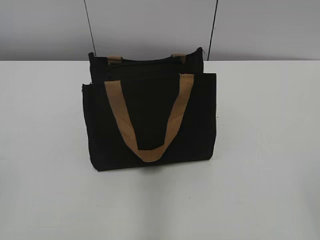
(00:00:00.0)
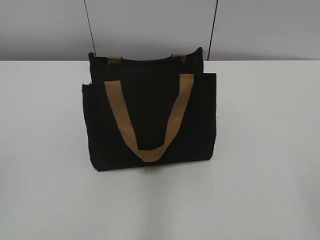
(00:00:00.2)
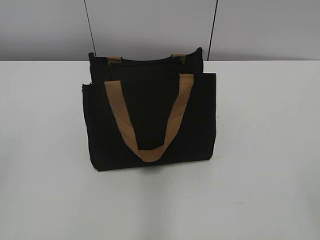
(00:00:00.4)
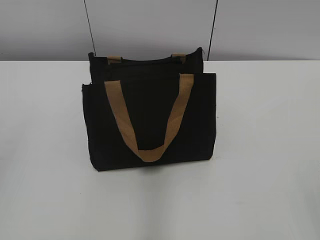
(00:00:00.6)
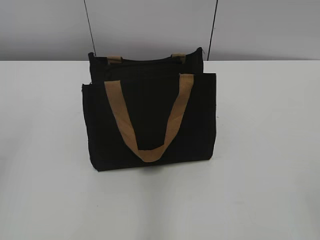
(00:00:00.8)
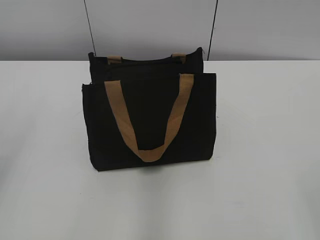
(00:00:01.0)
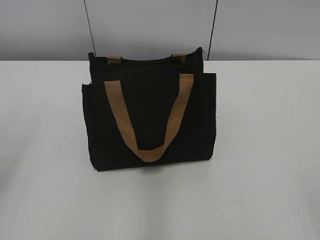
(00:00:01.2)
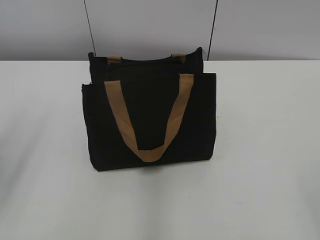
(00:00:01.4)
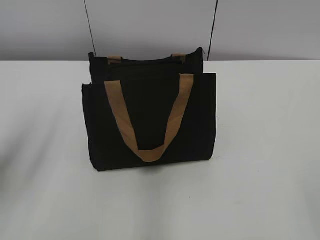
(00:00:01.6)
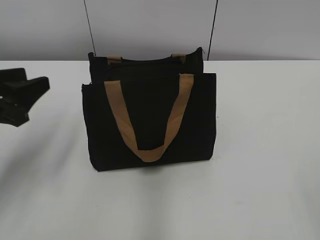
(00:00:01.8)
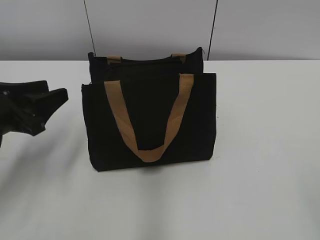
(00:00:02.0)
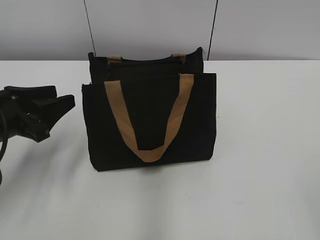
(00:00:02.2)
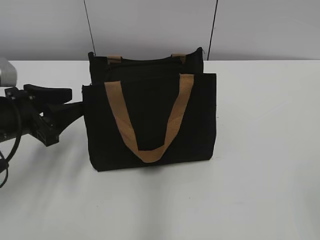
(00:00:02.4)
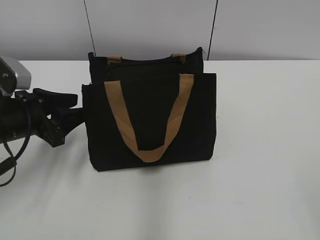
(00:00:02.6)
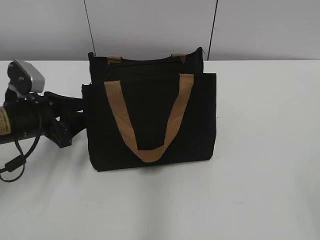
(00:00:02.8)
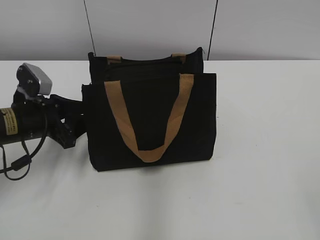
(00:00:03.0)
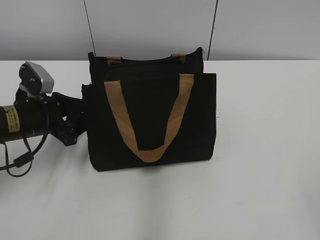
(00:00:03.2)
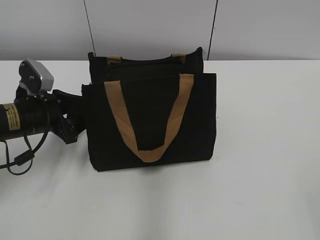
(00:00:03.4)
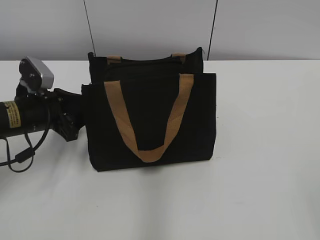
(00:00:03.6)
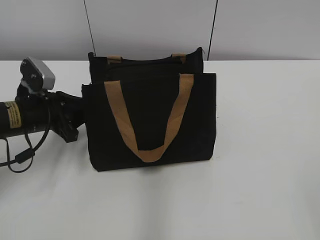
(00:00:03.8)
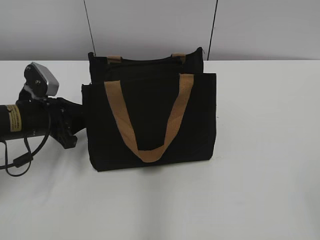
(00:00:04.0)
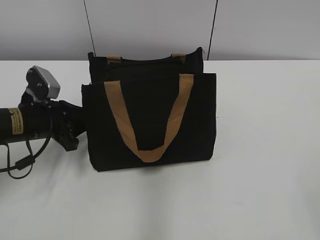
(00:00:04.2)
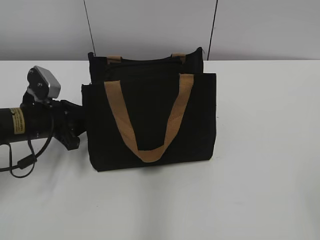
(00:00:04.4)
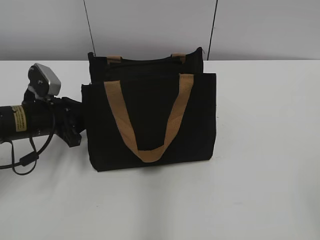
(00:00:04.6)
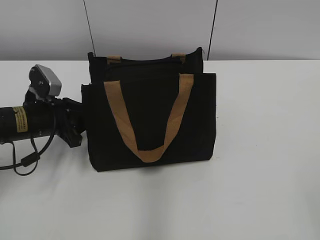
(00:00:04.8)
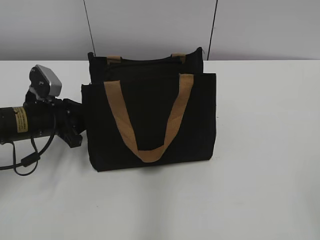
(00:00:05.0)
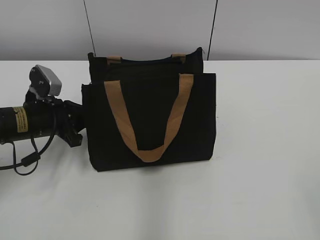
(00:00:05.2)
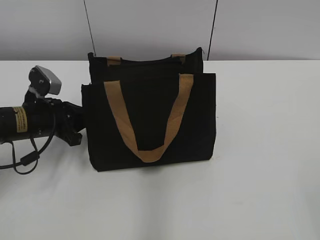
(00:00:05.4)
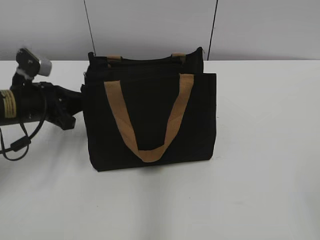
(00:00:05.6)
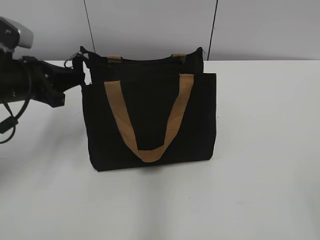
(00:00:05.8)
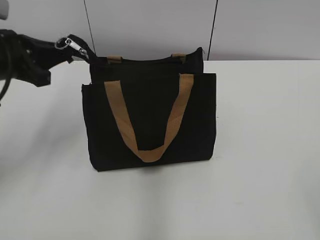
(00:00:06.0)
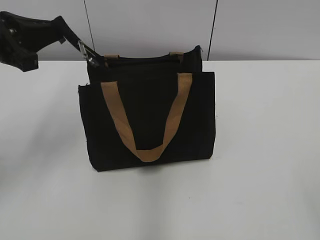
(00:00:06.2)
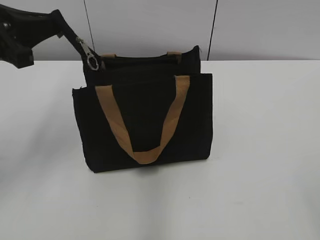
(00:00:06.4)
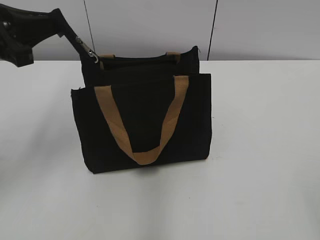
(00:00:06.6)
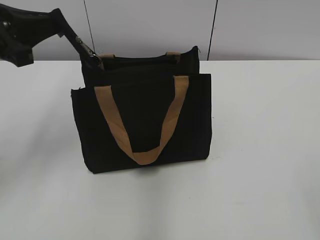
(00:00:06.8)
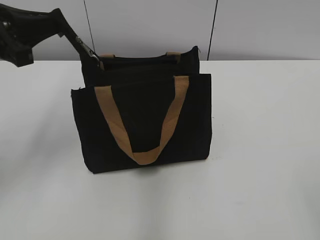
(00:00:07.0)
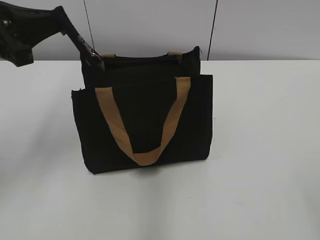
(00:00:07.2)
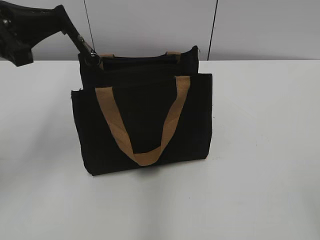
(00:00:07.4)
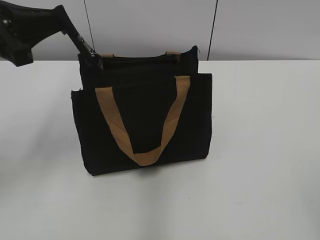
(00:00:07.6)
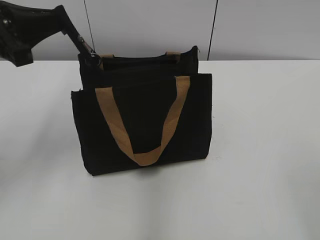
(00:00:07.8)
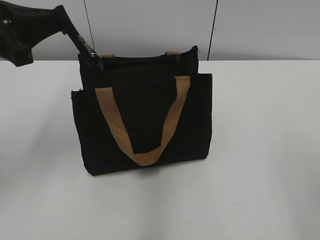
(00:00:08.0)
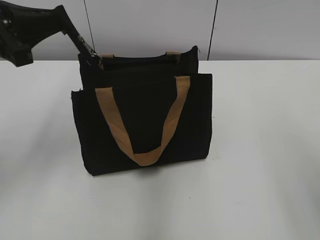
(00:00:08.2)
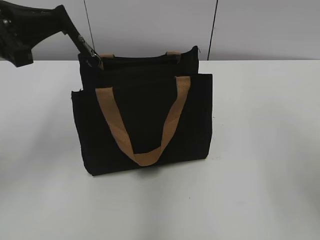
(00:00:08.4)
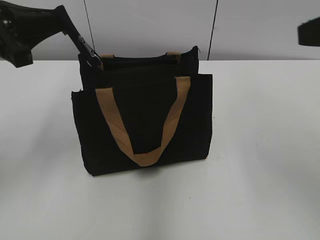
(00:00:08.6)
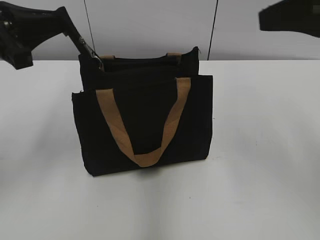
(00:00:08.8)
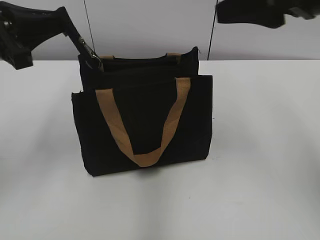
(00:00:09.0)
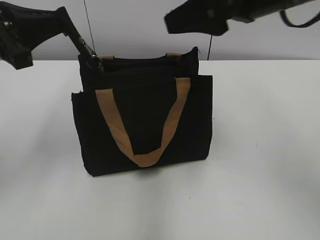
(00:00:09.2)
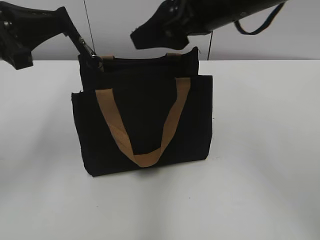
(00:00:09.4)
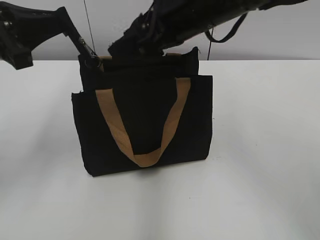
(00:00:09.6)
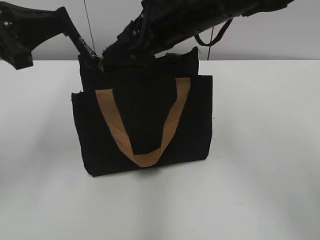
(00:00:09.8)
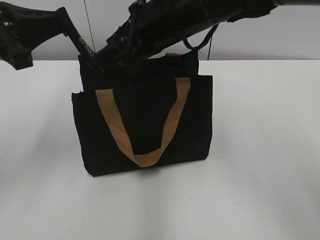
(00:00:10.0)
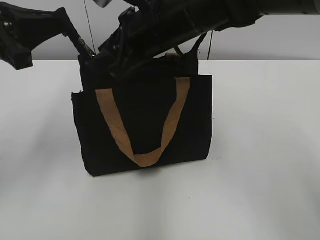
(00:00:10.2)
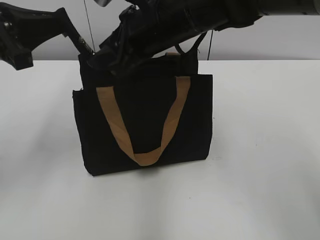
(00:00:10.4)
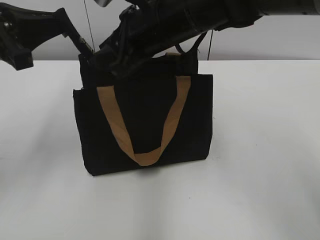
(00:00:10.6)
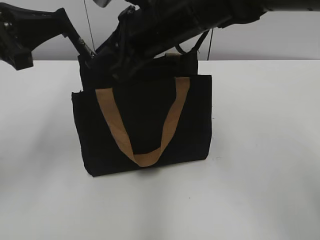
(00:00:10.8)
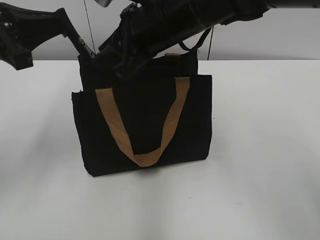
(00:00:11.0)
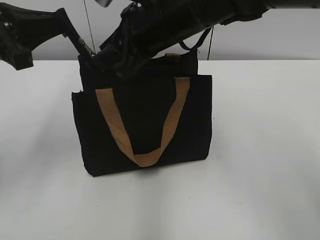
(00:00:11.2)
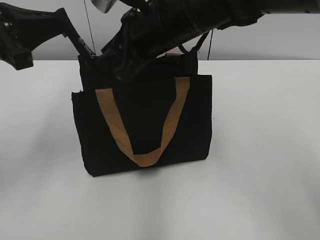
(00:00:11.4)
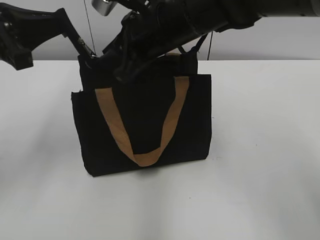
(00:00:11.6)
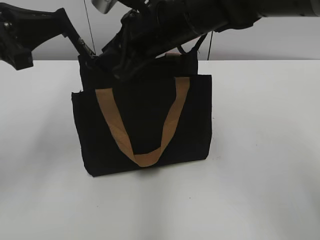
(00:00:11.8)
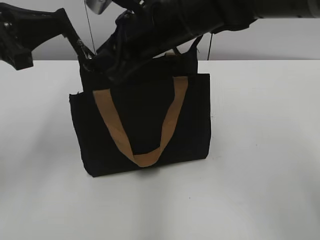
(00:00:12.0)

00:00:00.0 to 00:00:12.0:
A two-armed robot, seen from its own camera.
00:00:00.0 to 00:00:01.6: The left gripper is displaced forward by some 20 cm.
00:00:01.6 to 00:00:03.0: The left gripper moves downward, forward and to the right, approximately 20 cm.
00:00:03.0 to 00:00:04.4: The left gripper closes.
00:00:04.4 to 00:00:06.0: The left gripper heads upward, covering approximately 10 cm, and closes.
00:00:06.0 to 00:00:07.6: The left gripper is displaced upward by about 5 cm.
00:00:07.6 to 00:00:09.0: The right gripper shifts about 25 cm forward.
00:00:09.0 to 00:00:10.4: The right gripper is displaced to the left, downward and forward by about 20 cm.
00:00:10.4 to 00:00:12.0: The two grippers keep their place.

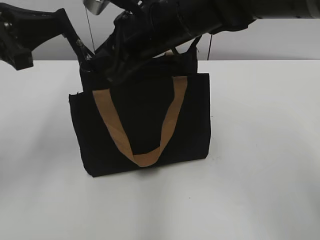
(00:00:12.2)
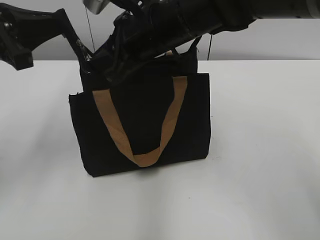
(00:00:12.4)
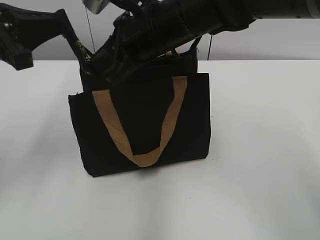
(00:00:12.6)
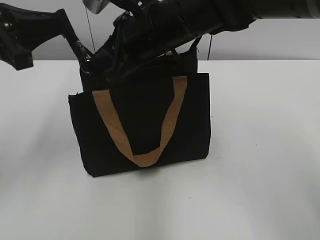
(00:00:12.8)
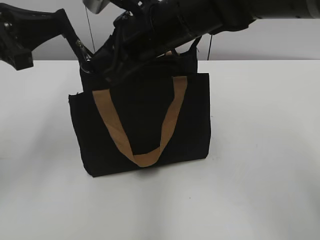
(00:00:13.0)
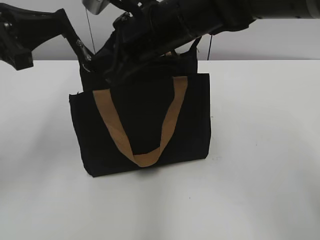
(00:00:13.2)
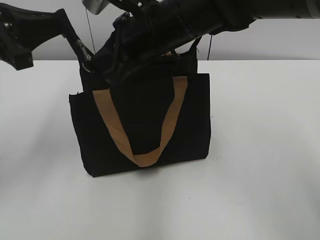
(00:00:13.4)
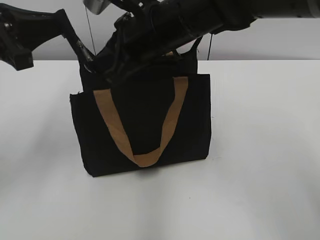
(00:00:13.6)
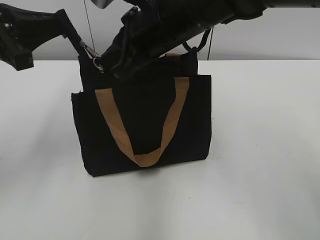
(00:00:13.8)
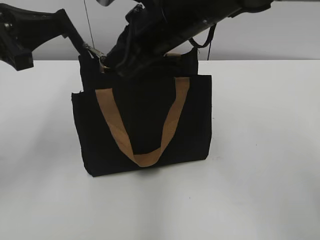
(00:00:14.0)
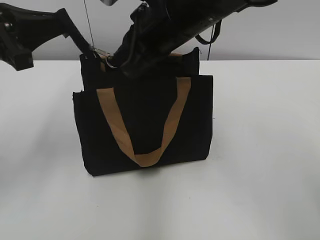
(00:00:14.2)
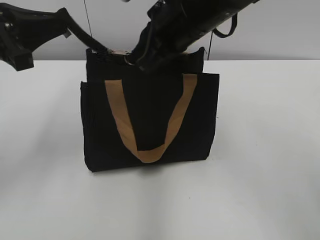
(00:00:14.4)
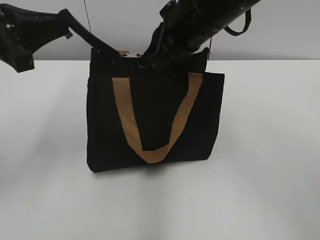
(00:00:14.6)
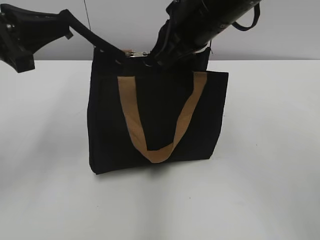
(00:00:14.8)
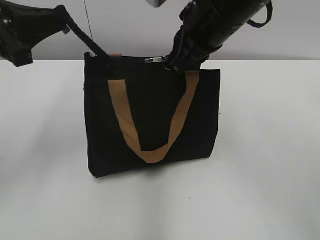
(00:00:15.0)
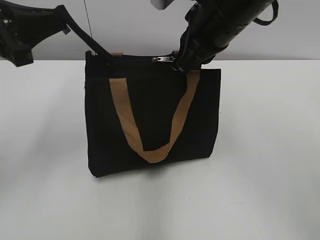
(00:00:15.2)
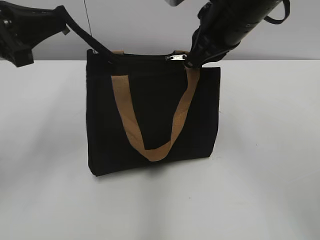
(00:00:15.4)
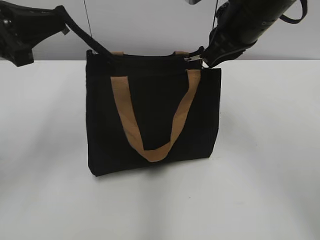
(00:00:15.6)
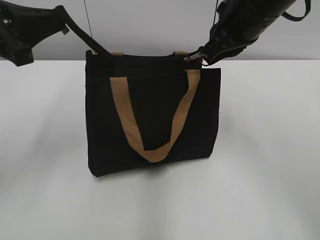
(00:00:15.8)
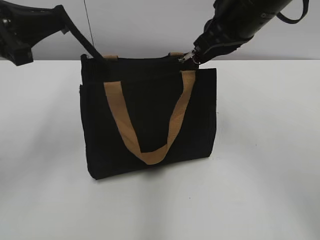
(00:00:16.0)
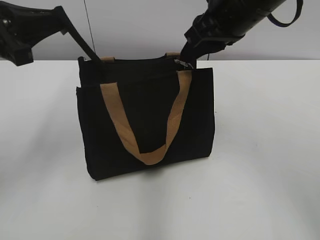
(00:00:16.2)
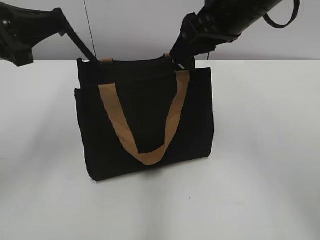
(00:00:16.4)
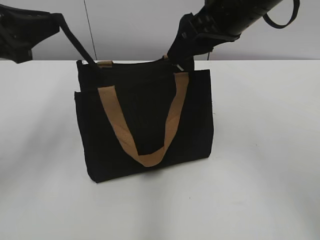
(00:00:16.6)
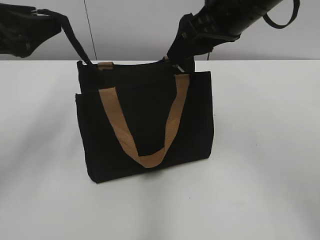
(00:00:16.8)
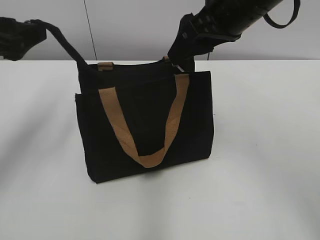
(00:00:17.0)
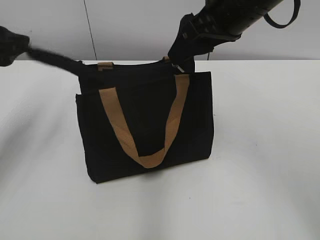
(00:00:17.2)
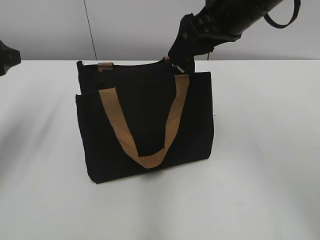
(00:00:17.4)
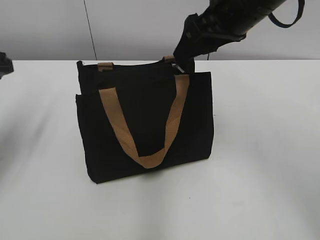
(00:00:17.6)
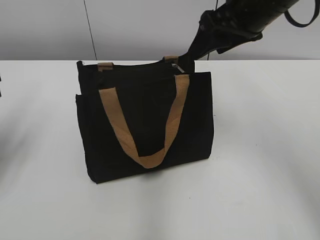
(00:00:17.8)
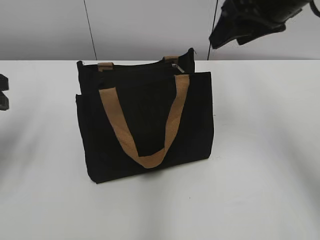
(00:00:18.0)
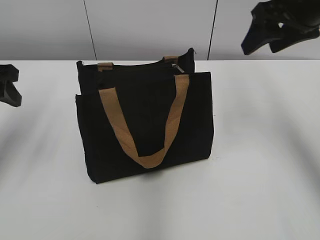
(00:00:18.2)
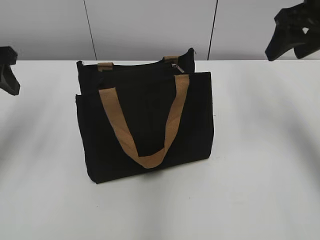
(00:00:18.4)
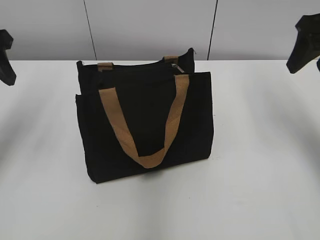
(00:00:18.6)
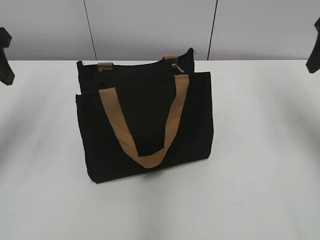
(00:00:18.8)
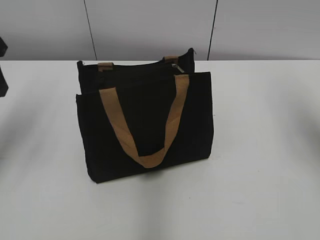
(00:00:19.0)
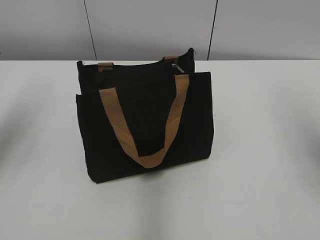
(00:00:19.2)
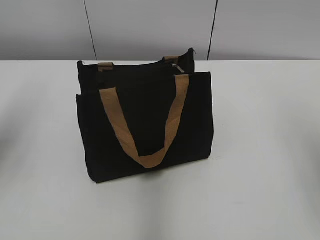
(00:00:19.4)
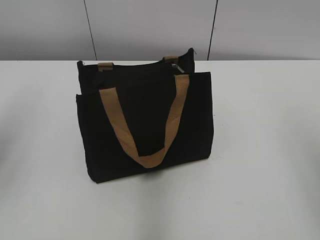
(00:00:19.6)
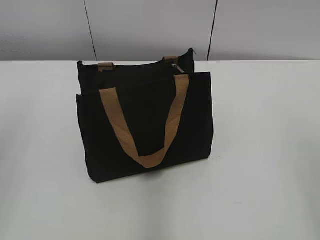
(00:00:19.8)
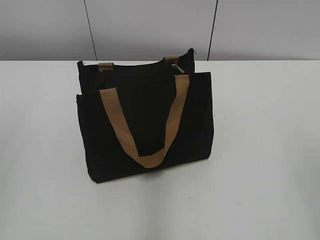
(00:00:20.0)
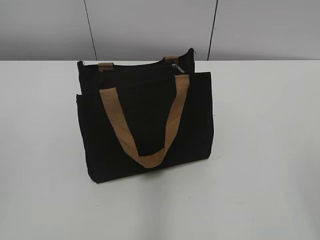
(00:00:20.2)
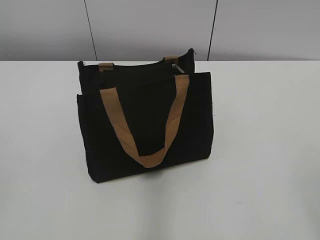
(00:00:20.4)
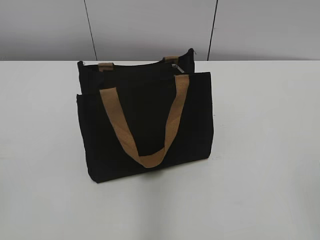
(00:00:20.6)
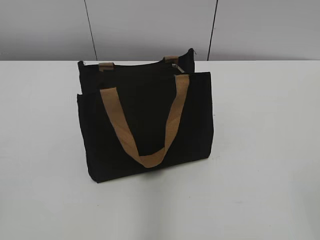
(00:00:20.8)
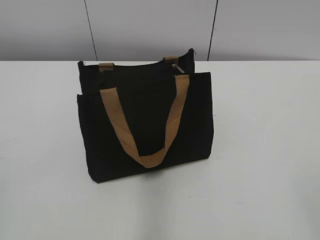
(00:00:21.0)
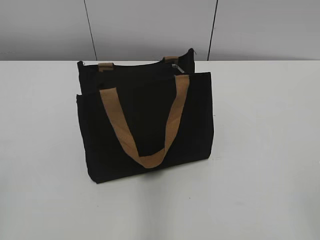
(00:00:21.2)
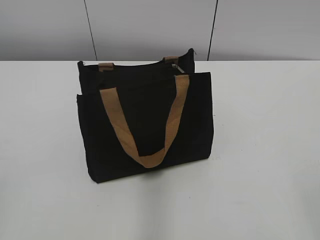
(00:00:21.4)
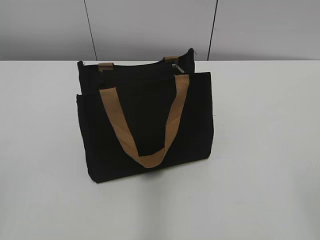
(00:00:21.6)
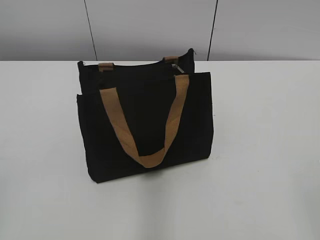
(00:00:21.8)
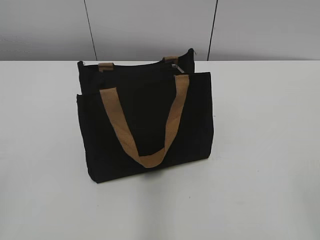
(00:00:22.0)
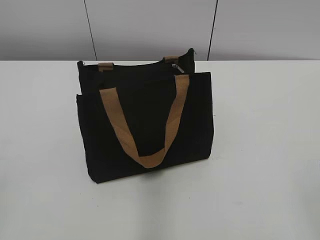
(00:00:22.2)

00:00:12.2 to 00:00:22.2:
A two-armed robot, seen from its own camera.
Step, 00:00:12.2 to 00:00:16.4: Zip up the bag with your right hand.
Step, 00:00:16.6 to 00:00:17.2: Grab the zipper with your left hand.
00:00:12.2 to 00:00:13.6: The right gripper closes.
00:00:13.6 to 00:00:15.0: The right gripper travels to the right by about 5 cm.
00:00:15.0 to 00:00:16.4: The right gripper opens up.
00:00:16.4 to 00:00:18.0: The left gripper shifts some 10 cm to the left and downward, and opens its fingers.
00:00:18.0 to 00:00:19.4: The right gripper moves backward and to the right, some 20 cm, while the left gripper goes about 10 cm upward.
00:00:19.4 to 00:00:20.8: Both grippers travel together backward, about 25 cm.
